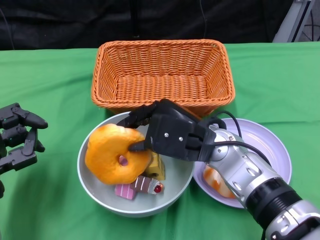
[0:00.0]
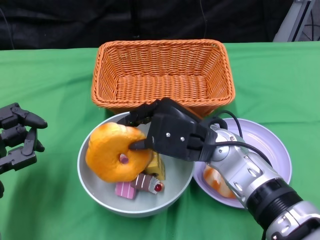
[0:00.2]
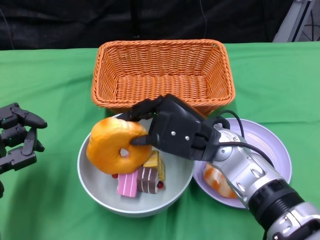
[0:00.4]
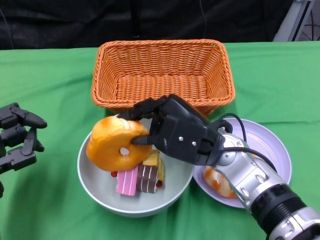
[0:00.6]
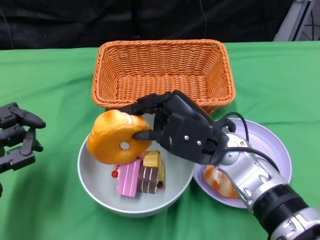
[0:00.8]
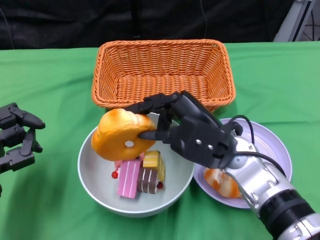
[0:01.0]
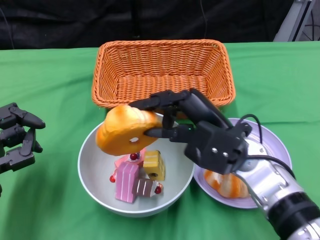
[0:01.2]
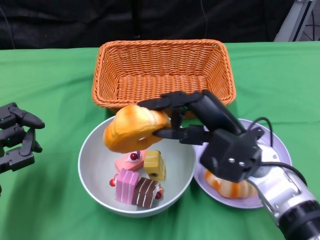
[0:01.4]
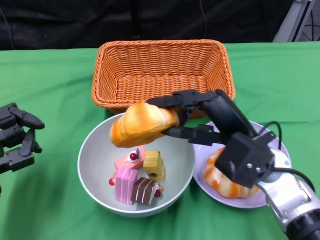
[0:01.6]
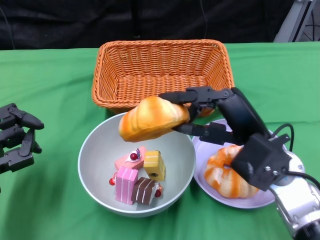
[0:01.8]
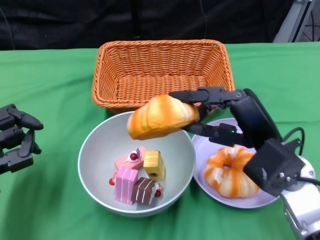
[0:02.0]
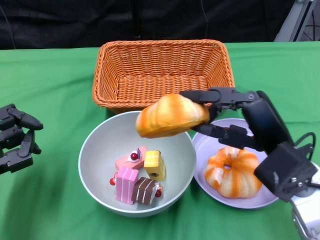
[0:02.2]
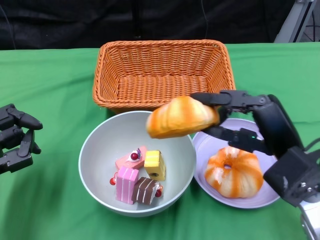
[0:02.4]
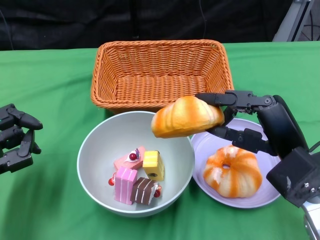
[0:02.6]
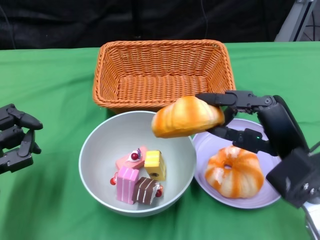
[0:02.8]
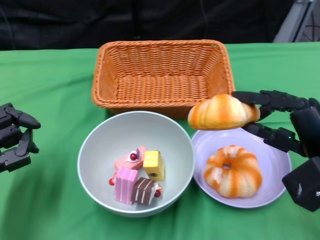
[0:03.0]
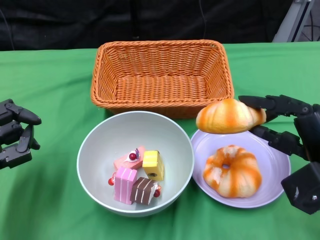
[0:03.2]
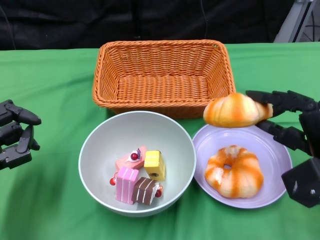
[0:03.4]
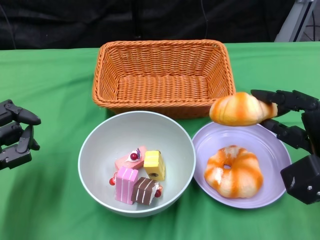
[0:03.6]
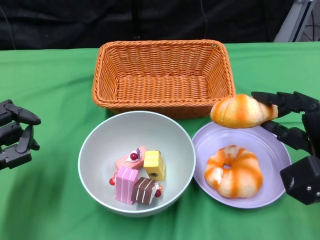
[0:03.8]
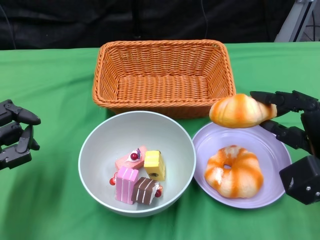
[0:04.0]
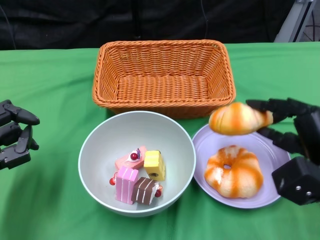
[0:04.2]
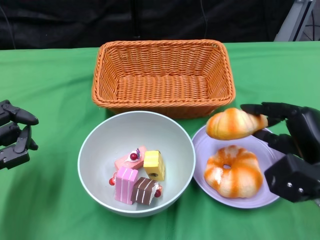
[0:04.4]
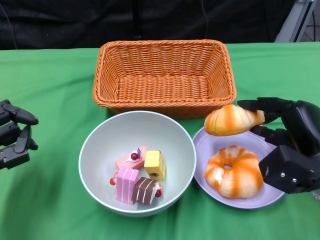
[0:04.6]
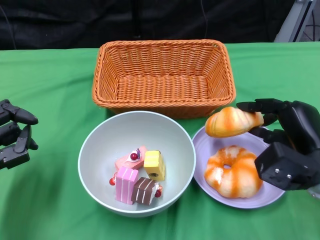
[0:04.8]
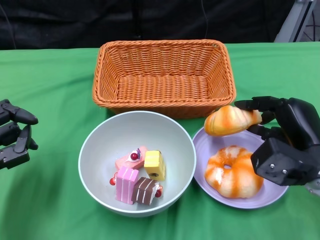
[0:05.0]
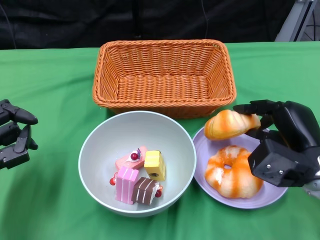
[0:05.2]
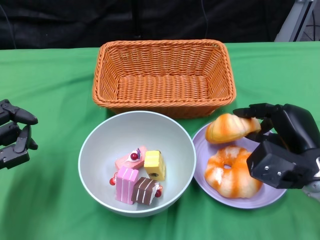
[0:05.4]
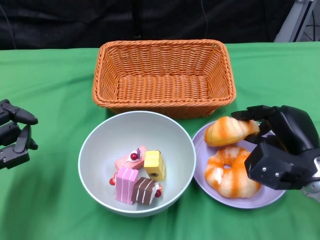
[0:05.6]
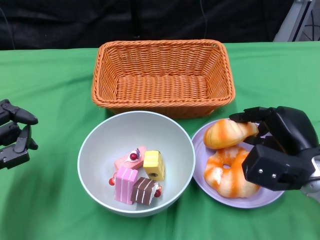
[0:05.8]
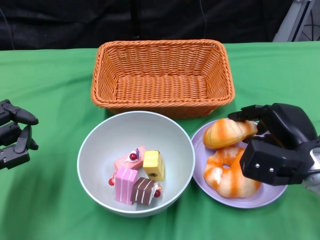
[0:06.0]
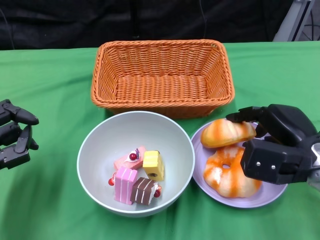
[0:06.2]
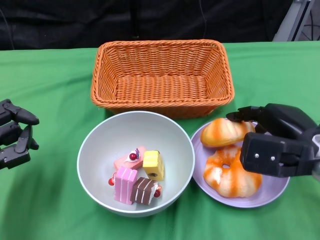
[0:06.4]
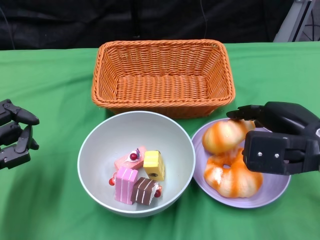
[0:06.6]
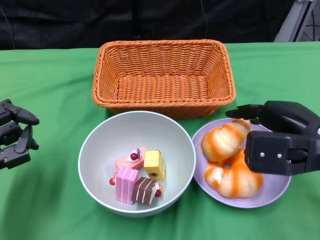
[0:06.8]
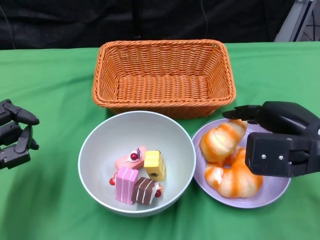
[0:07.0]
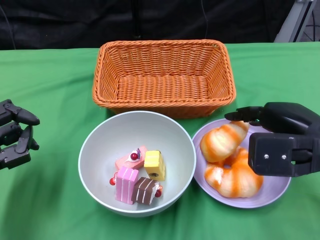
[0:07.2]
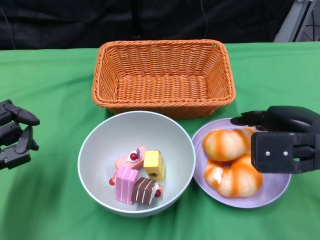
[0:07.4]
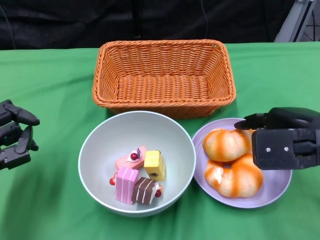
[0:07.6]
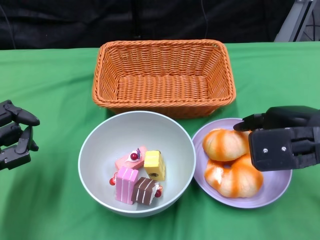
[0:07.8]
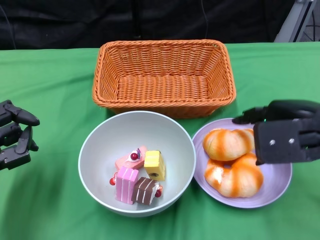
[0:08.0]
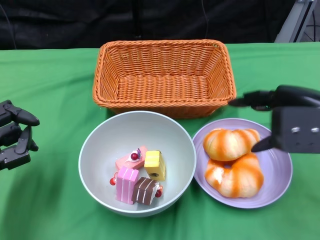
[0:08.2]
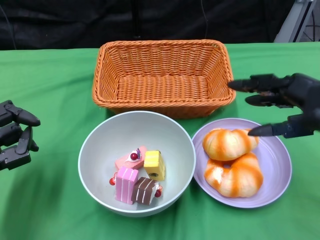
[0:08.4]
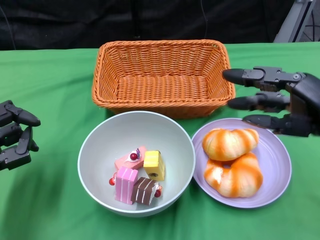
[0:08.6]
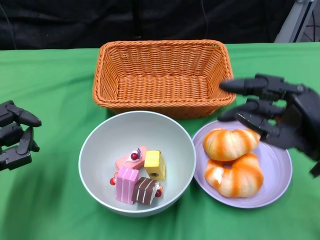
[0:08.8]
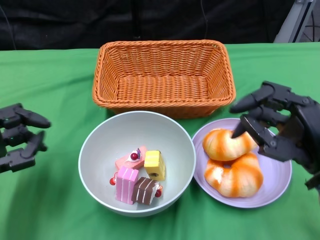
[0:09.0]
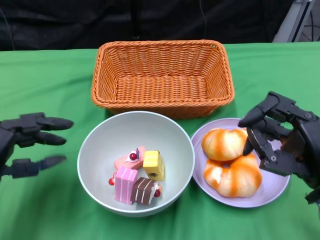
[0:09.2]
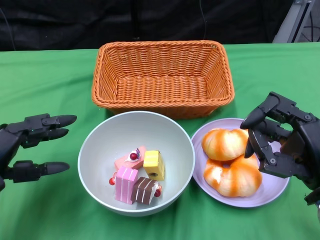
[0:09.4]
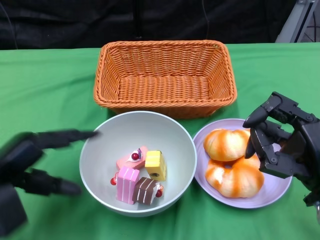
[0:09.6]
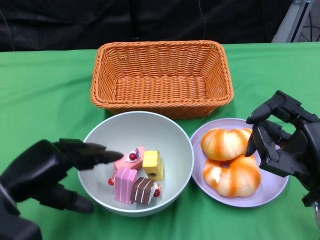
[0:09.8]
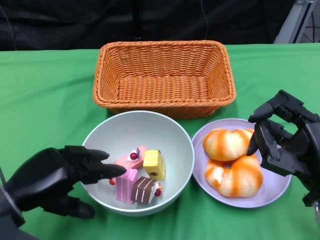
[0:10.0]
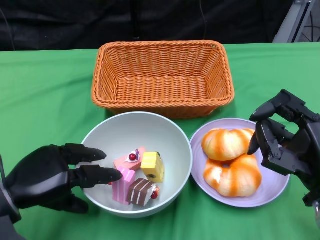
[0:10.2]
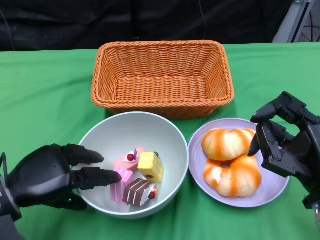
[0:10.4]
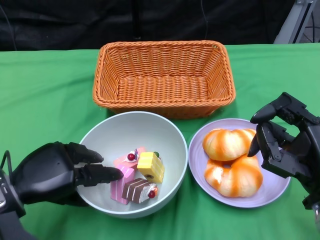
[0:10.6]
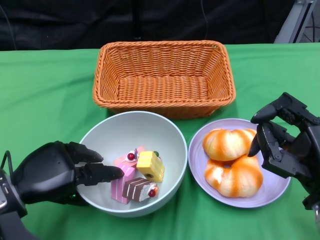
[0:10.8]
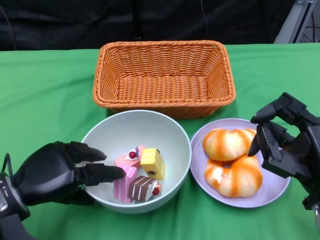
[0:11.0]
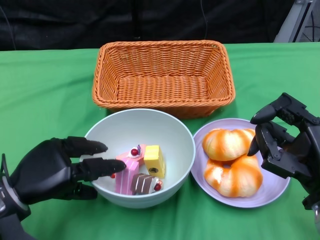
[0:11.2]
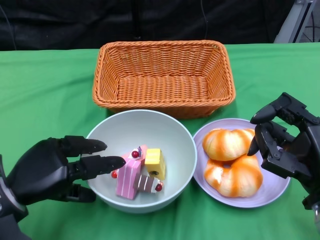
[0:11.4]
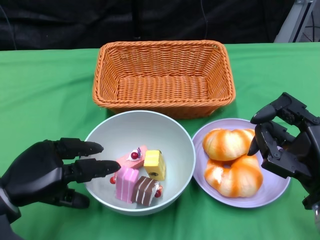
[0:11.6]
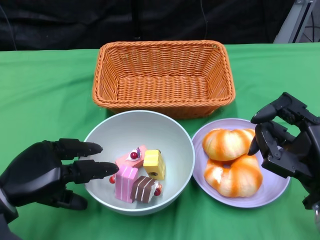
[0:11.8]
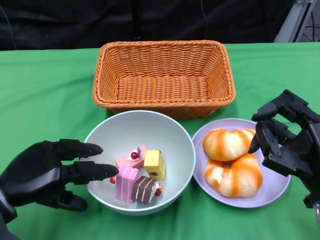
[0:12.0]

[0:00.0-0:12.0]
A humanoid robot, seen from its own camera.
Step, 0:00.0 to 0:08.2: Pick up the bread with the right gripper and place it on the plate.
0:00.0 to 0:01.6: The right hand shifts approximately 5 cm to the right.
0:01.6 to 0:03.0: The right hand travels to the right by some 10 cm.
0:03.0 to 0:04.4: The hands make only small movements.
0:06.0 to 0:07.6: The right hand moves upward, some 10 cm.
0:07.6 to 0:09.0: The right hand travels backward by some 5 cm.
0:10.4 to 0:12.0: The hands move only a little.

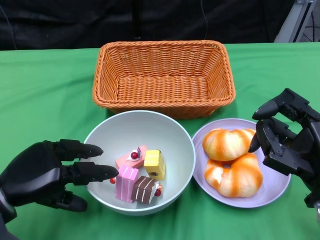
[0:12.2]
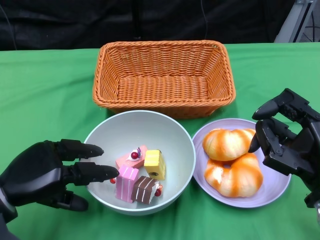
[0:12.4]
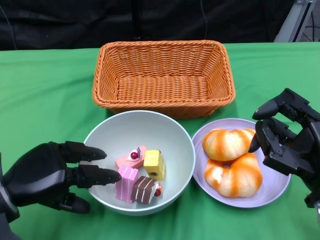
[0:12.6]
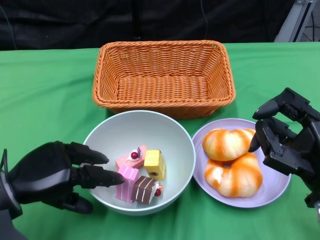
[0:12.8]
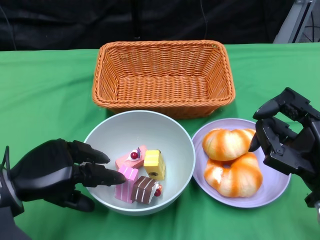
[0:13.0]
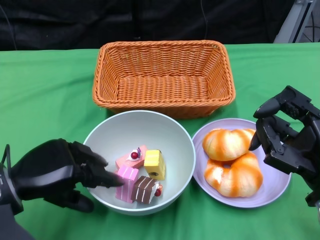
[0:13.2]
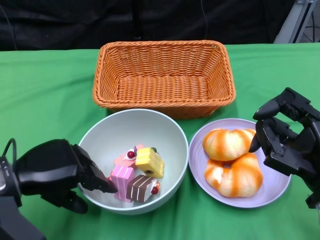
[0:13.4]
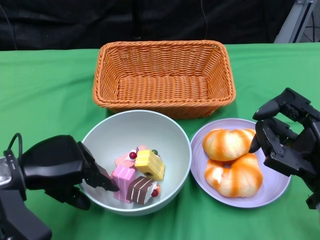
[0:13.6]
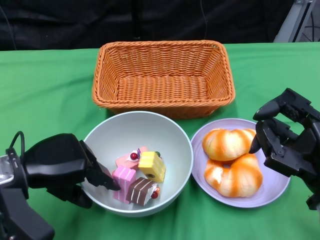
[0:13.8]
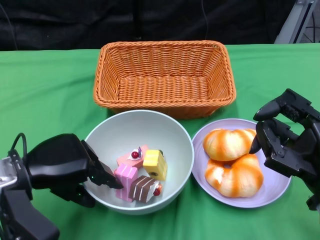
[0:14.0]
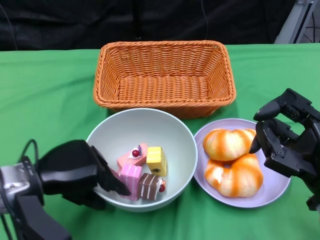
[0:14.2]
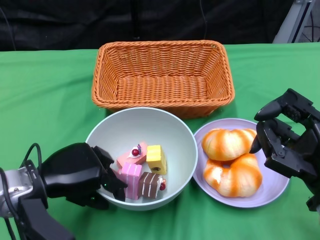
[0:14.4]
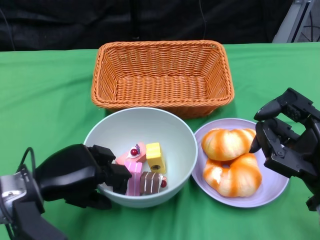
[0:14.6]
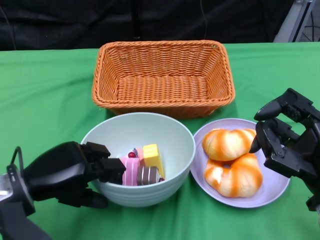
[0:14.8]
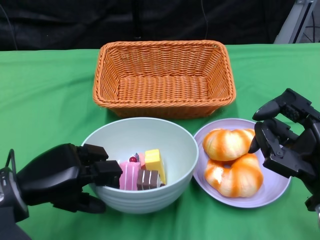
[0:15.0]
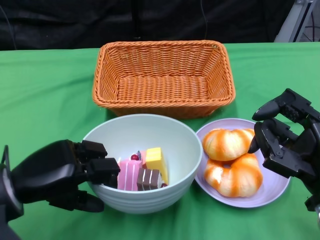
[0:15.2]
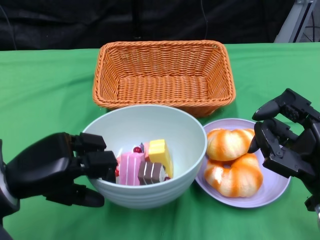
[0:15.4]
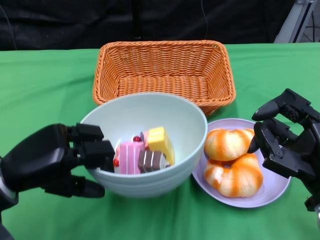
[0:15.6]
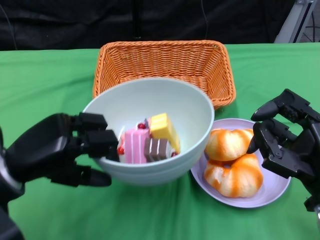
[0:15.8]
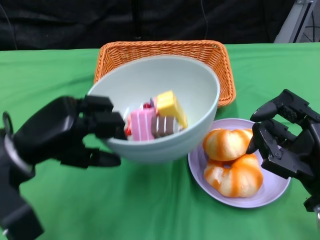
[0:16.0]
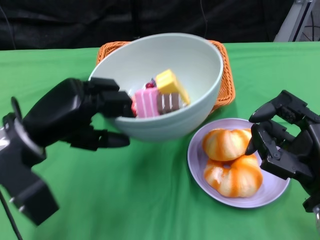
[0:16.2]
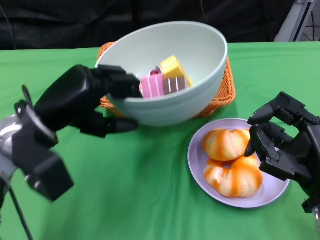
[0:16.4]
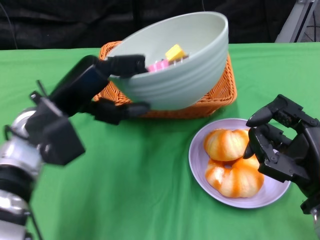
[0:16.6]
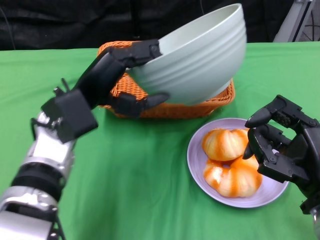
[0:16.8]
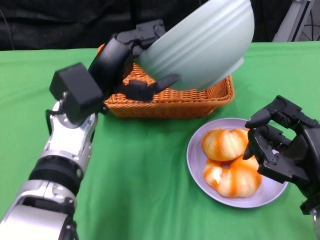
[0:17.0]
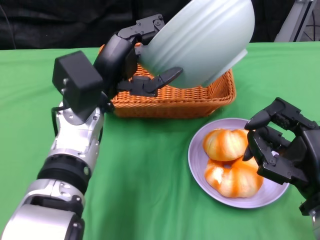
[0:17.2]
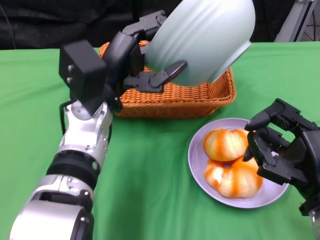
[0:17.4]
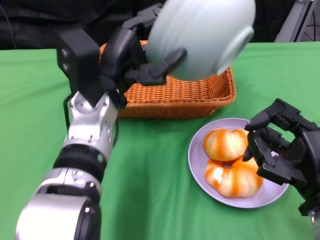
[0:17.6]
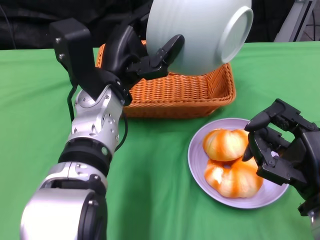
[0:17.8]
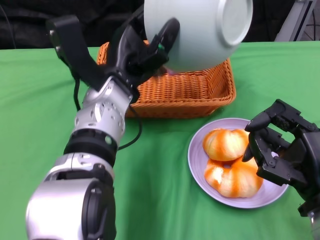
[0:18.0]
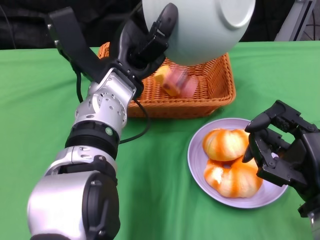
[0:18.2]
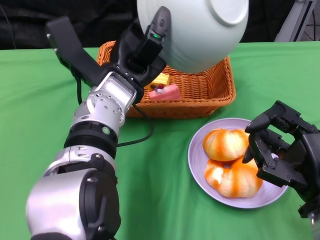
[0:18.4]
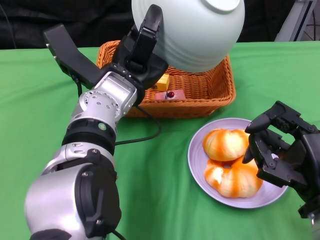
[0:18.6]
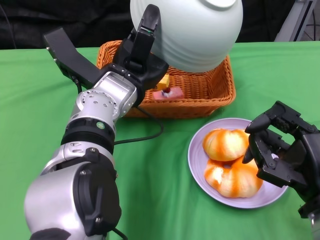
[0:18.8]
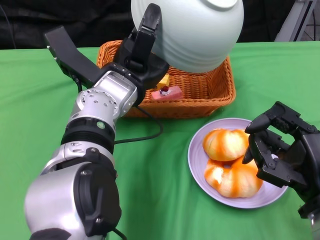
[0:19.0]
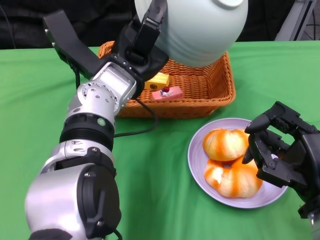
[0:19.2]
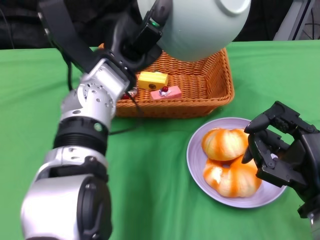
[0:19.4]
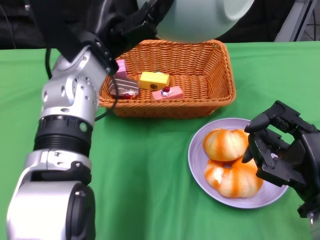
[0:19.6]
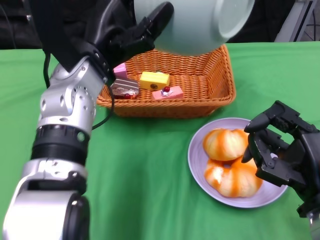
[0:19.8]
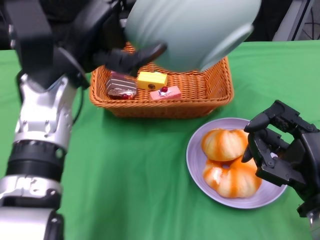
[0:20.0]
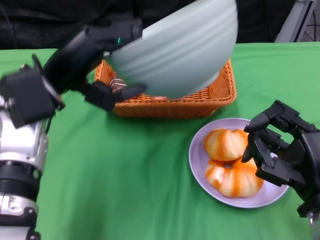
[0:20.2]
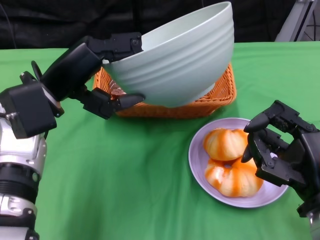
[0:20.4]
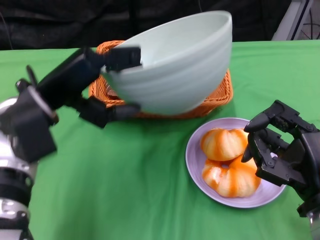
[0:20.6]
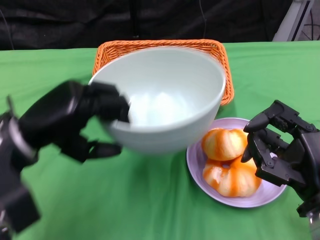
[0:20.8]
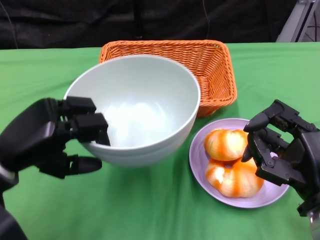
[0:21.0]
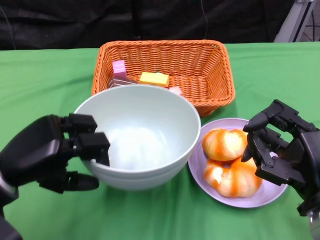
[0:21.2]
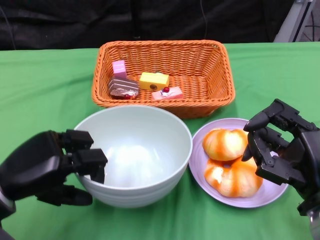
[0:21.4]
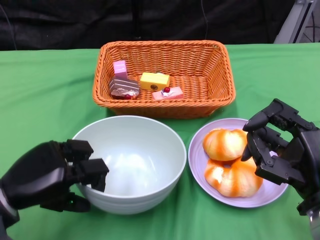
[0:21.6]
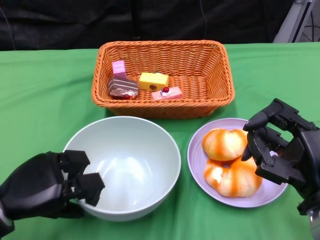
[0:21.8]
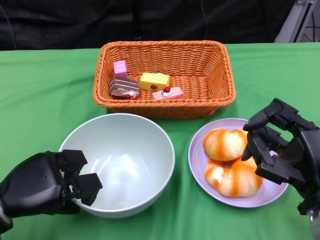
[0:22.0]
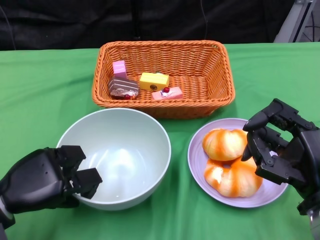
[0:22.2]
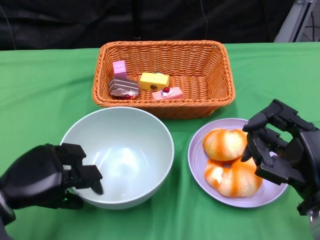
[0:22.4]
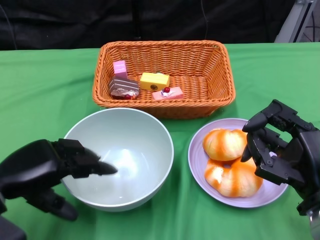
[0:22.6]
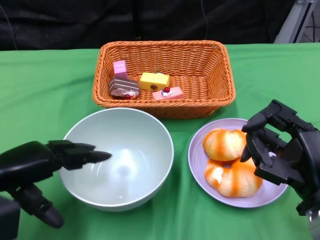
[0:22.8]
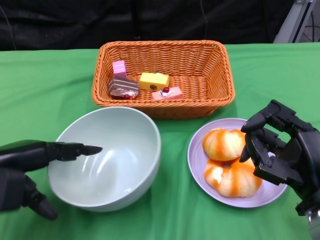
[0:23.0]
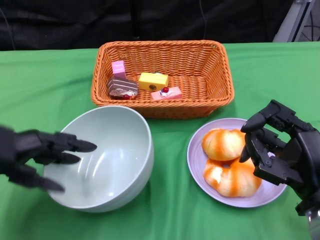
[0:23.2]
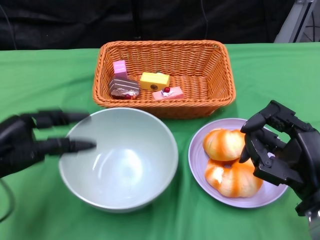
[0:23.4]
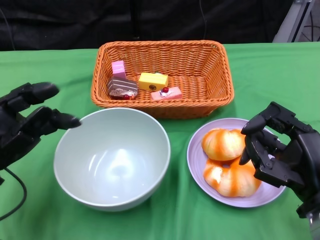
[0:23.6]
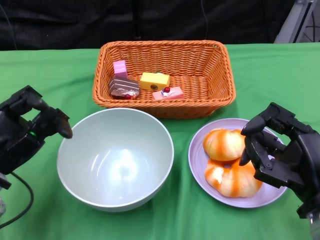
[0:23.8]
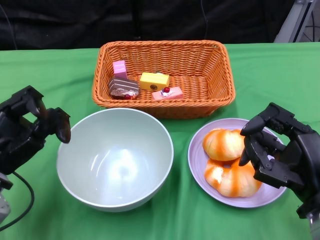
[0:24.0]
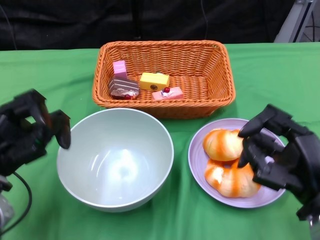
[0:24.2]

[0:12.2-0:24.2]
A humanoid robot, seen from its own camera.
Step, 0:12.2 to 0:15.6: Grasp the bowl with the left gripper.
Step, 0:15.8 to 0:19.4: Pour the cake into the basket with the left gripper.
Step, 0:19.6 to 0:23.8: Place the bowl on the table with the left gripper.
0:12.2 to 0:13.8: There are only small adjustments of the hands.
0:15.2 to 0:16.6: The left hand heads forward, to the right and upward, covering roughly 10 cm.
0:16.6 to 0:18.2: The left hand travels to the right by about 10 cm.
0:18.2 to 0:19.8: The left hand changes place by approximately 5 cm.
0:19.8 to 0:21.2: The left hand travels to the left, backward and downward by about 20 cm.
